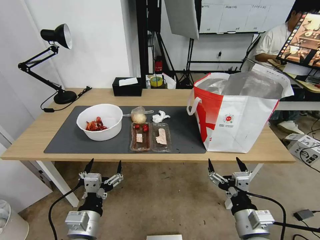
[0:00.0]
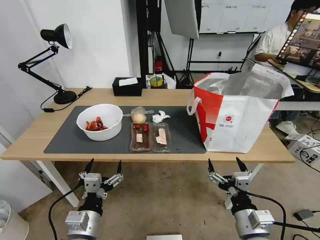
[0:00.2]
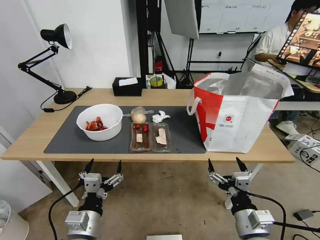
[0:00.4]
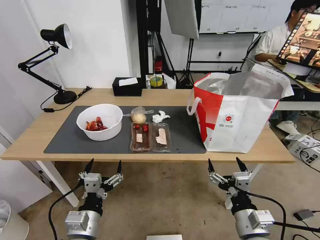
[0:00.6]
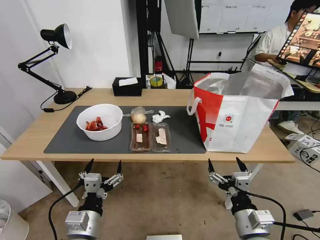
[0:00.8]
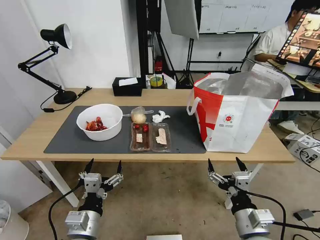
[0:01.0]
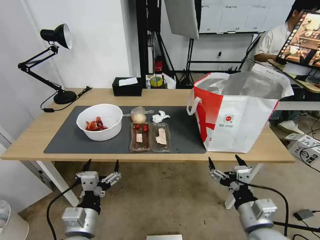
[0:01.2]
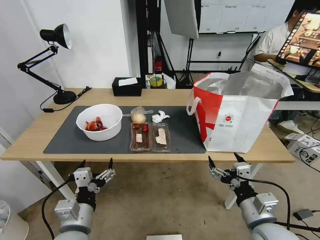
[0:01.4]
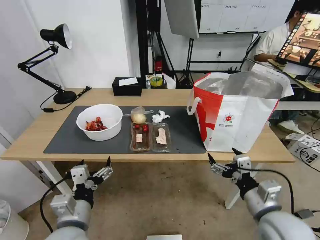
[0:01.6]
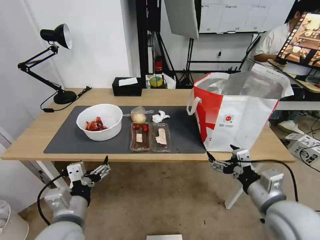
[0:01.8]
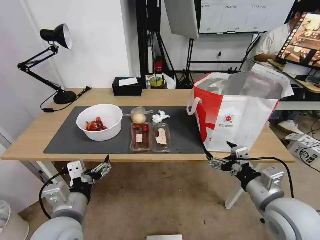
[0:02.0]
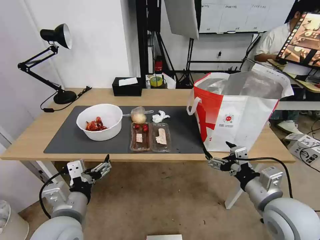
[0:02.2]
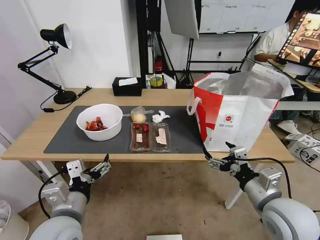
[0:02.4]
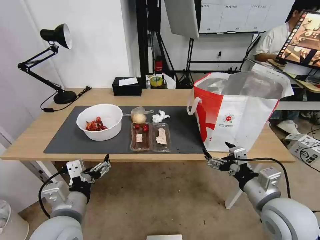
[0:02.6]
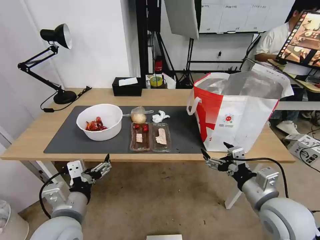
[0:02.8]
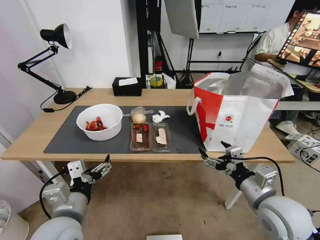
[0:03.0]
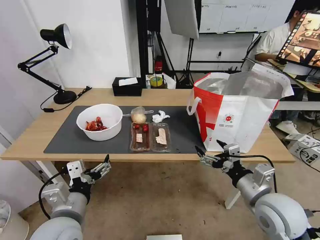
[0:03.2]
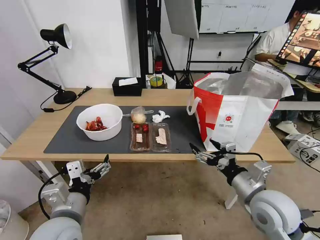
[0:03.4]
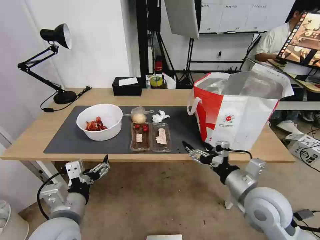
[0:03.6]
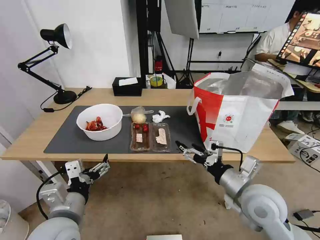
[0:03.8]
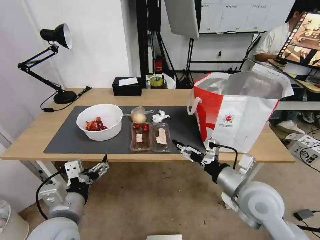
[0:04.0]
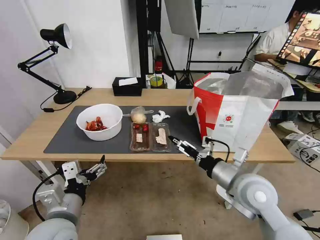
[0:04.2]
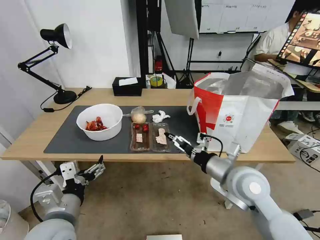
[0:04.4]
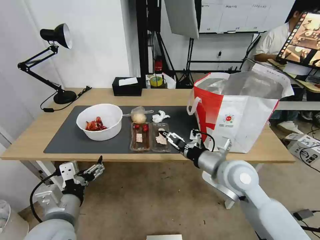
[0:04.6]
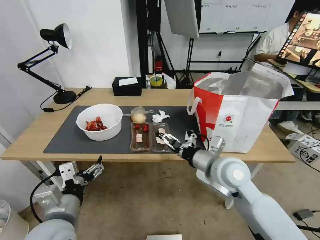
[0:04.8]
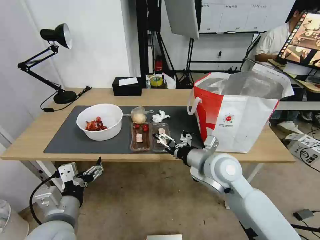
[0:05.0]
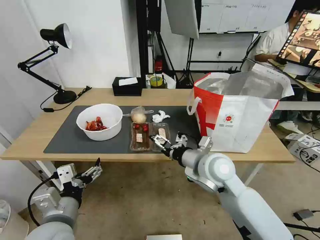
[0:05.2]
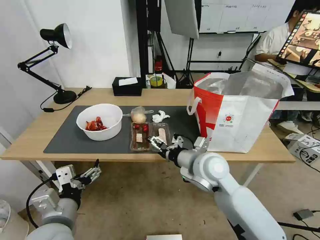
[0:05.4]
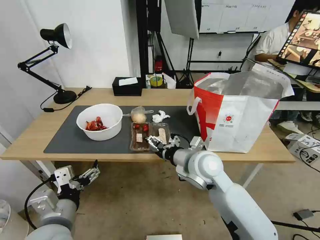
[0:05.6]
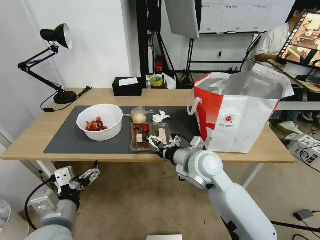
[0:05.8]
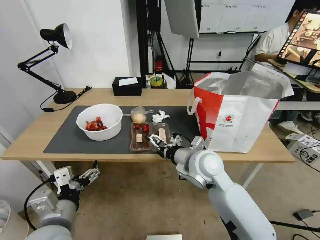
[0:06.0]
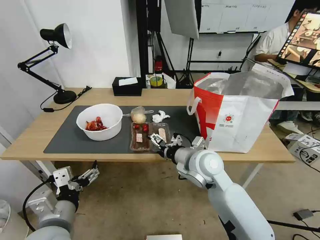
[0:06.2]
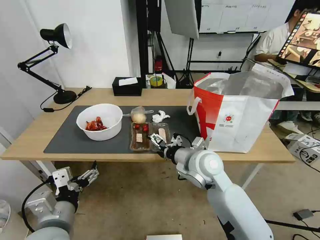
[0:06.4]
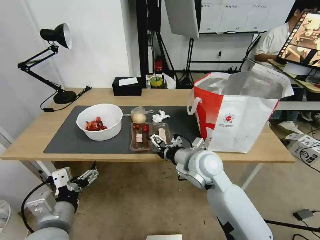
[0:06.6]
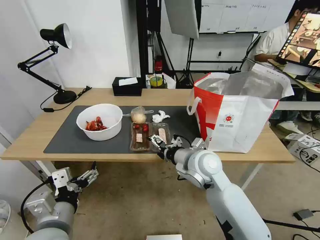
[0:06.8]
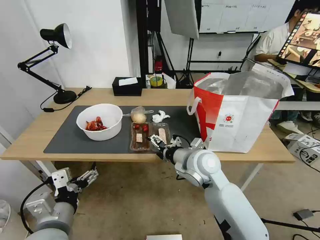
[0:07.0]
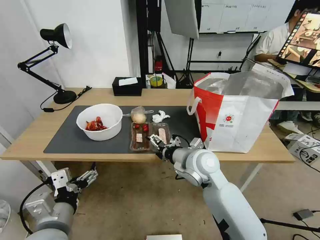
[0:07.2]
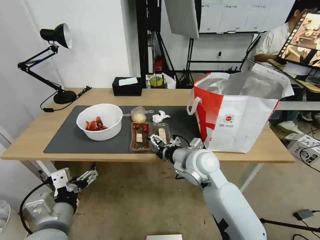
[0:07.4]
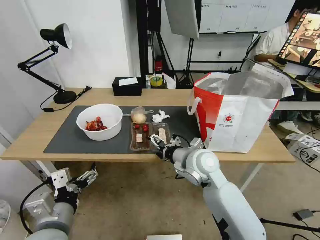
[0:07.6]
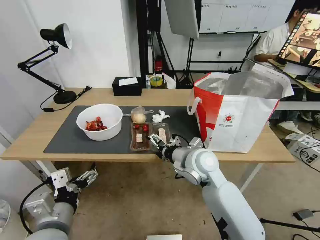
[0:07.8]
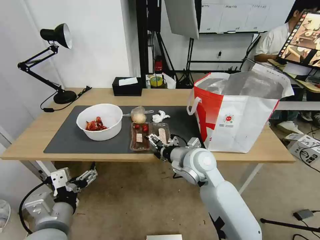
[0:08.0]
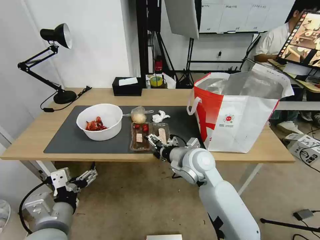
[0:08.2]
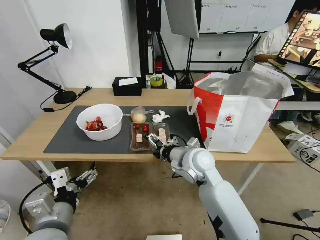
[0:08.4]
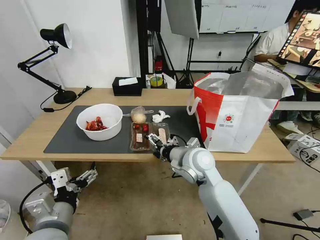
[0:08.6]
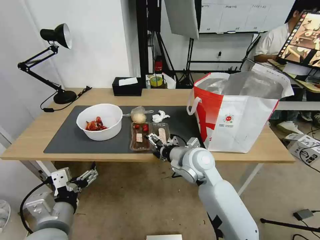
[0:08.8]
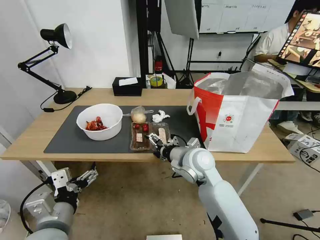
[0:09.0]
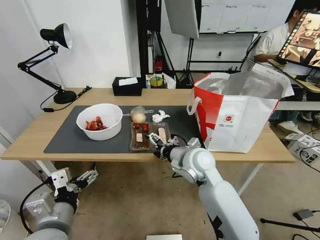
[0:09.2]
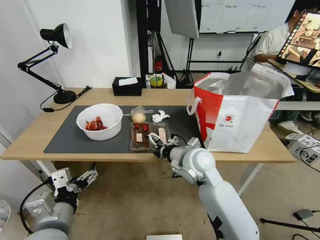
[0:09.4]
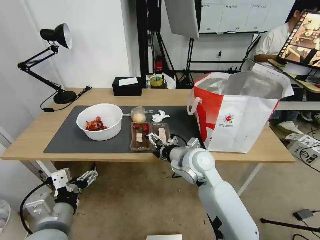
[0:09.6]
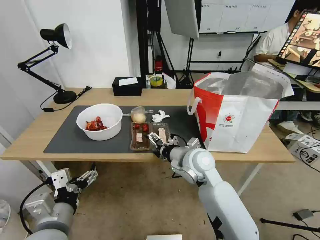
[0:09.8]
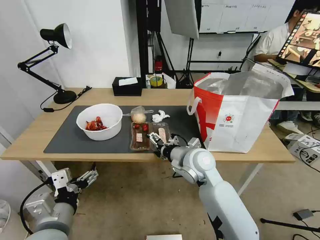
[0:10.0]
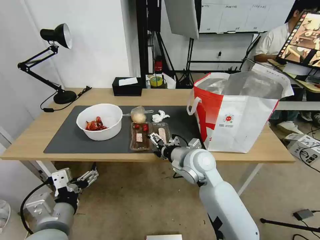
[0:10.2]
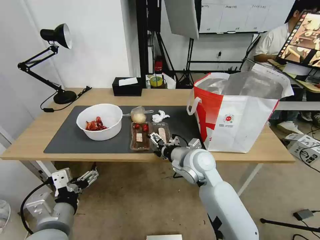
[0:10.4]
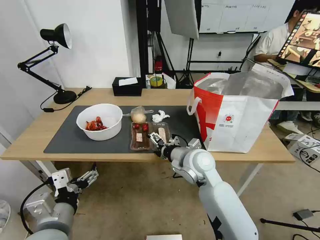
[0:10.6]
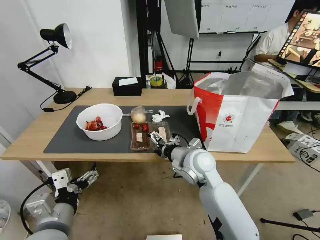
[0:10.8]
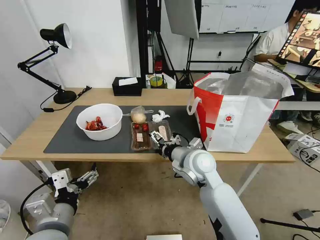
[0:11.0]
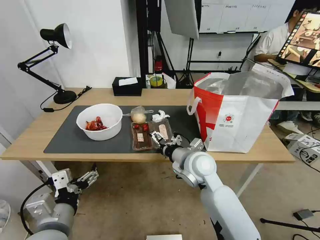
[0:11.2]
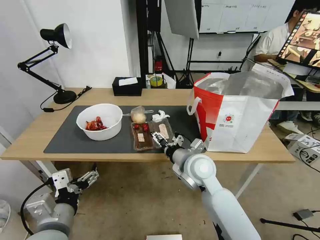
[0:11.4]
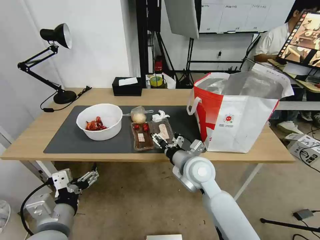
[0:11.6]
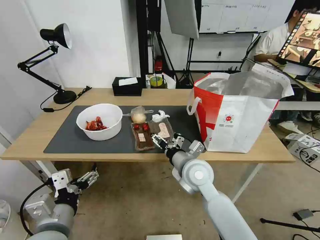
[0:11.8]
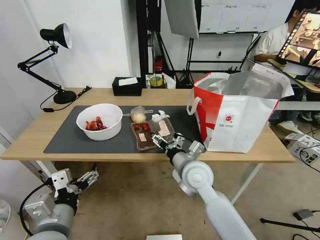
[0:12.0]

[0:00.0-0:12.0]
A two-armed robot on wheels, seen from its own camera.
Task of the whole recording: Pick up the trash from the table and place it into the takeout bag.
0:01.6 to 0:03.0: The grippers move only a little.
0:03.0 to 0:04.4: The right gripper heads forward and to the left, covering roughly 10 cm.
0:04.4 to 0:06.0: The right gripper travels to the left and forward by roughly 10 cm.
0:06.0 to 0:09.0: There are only small adjustments of the grippers.
0:09.0 to 0:10.4: The two grippers keep their place.

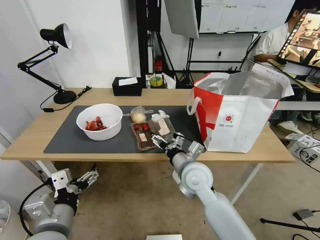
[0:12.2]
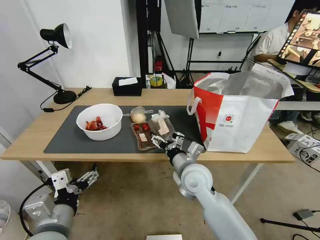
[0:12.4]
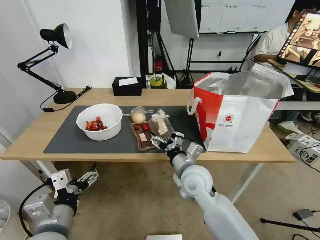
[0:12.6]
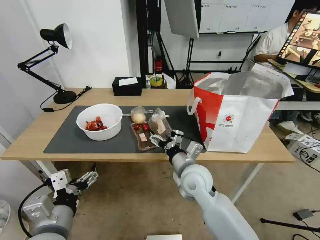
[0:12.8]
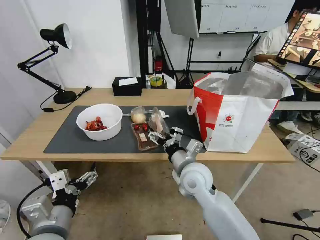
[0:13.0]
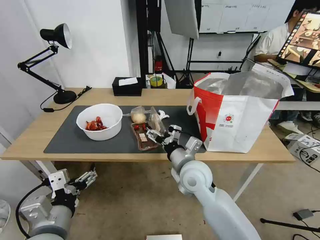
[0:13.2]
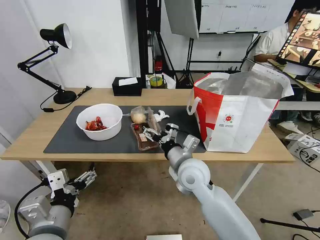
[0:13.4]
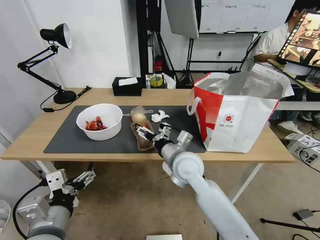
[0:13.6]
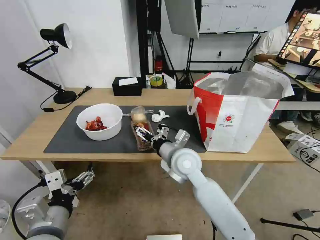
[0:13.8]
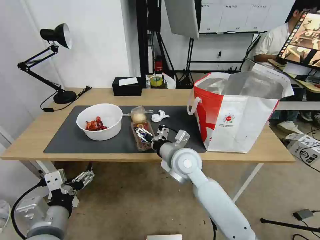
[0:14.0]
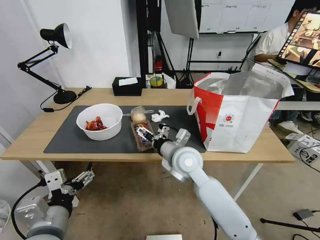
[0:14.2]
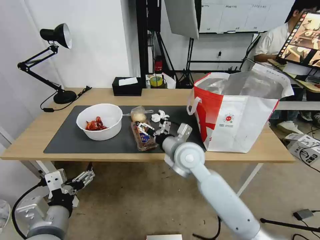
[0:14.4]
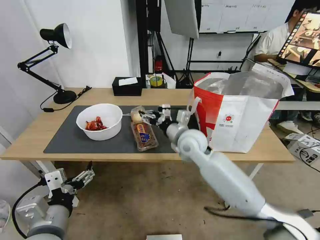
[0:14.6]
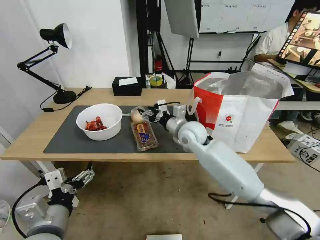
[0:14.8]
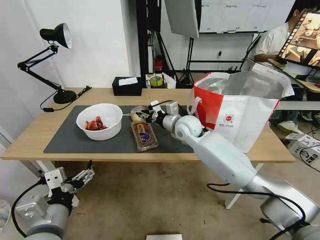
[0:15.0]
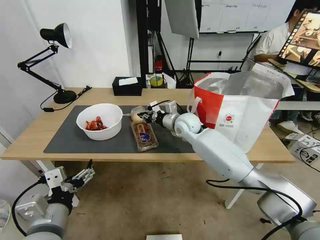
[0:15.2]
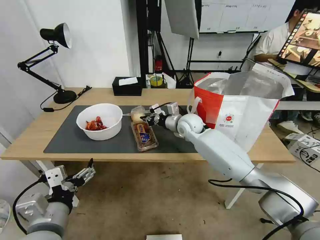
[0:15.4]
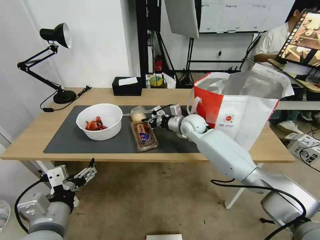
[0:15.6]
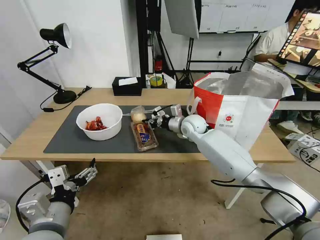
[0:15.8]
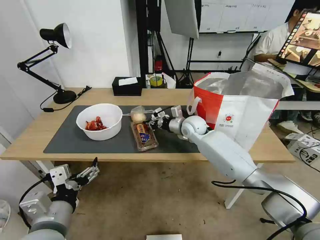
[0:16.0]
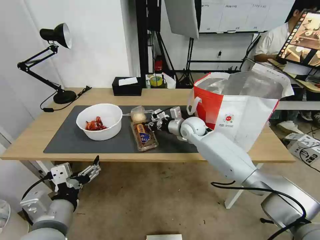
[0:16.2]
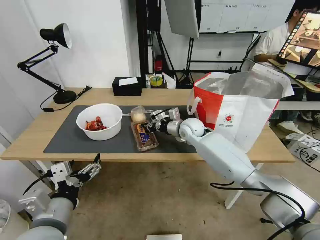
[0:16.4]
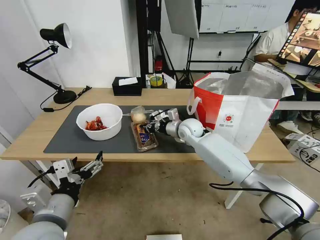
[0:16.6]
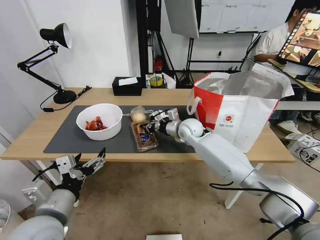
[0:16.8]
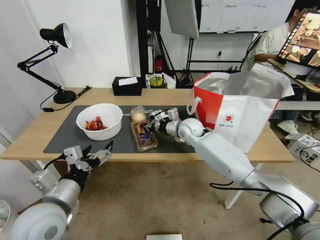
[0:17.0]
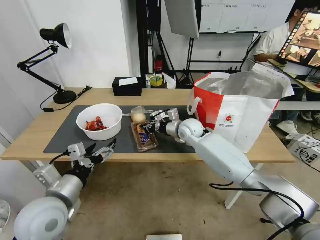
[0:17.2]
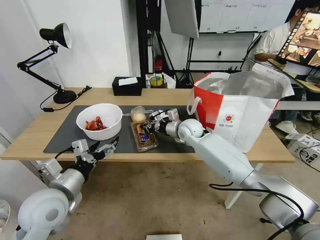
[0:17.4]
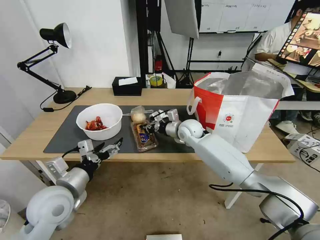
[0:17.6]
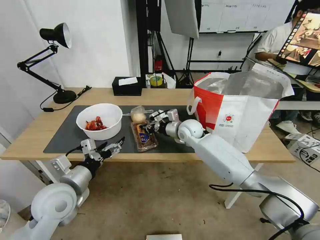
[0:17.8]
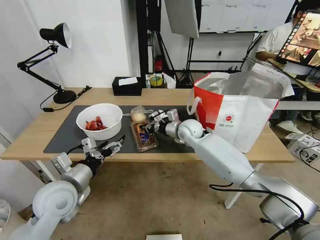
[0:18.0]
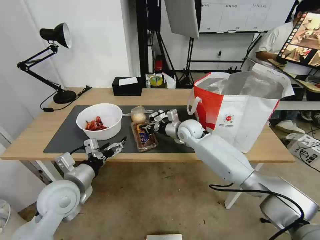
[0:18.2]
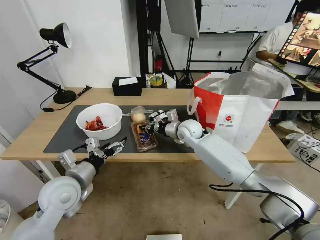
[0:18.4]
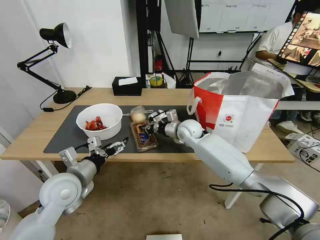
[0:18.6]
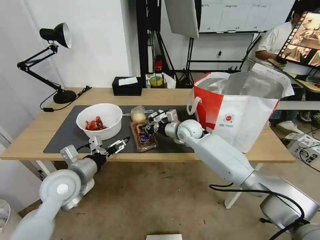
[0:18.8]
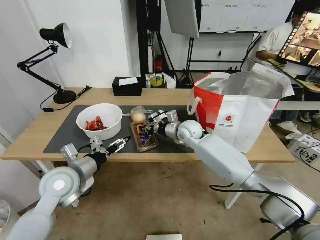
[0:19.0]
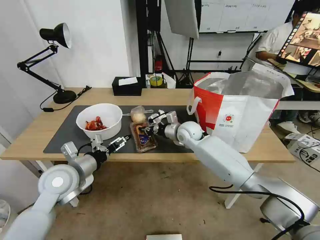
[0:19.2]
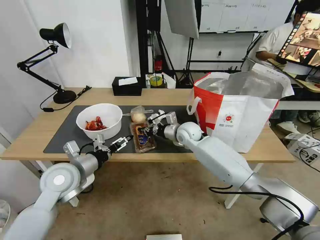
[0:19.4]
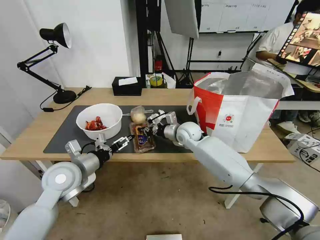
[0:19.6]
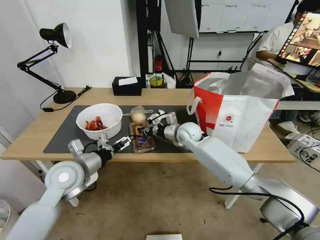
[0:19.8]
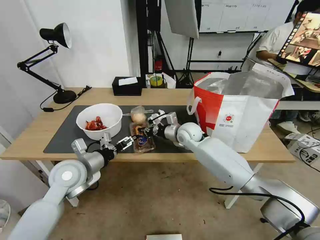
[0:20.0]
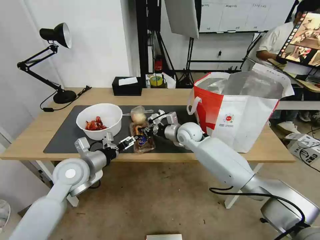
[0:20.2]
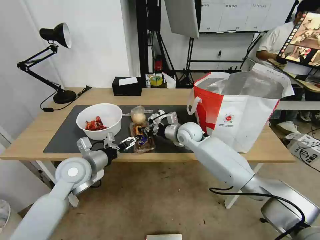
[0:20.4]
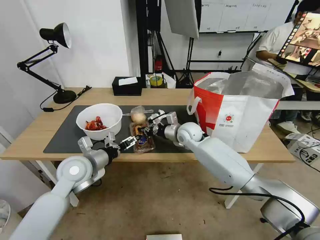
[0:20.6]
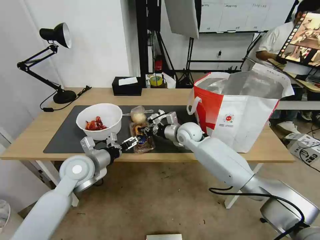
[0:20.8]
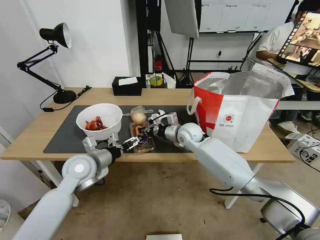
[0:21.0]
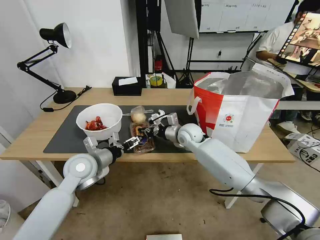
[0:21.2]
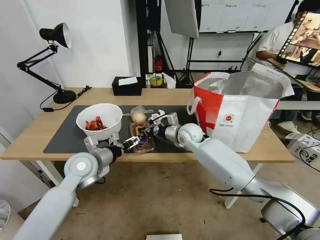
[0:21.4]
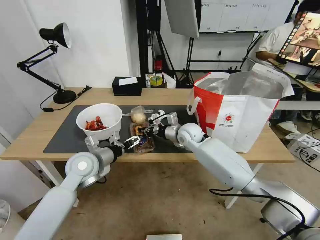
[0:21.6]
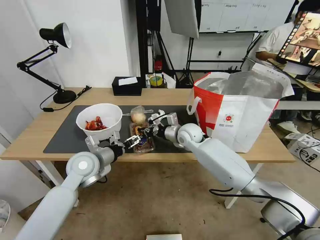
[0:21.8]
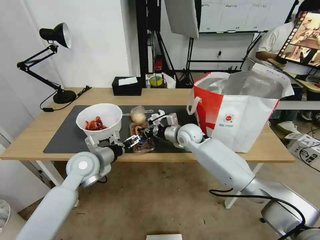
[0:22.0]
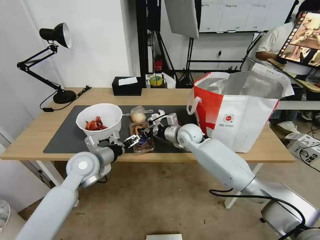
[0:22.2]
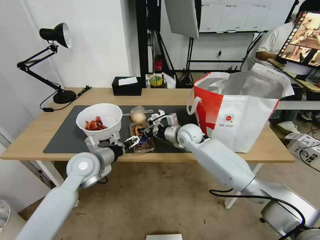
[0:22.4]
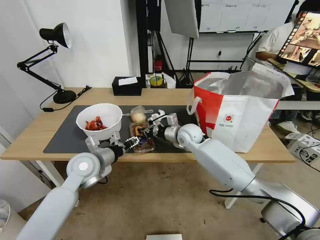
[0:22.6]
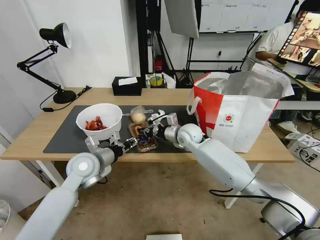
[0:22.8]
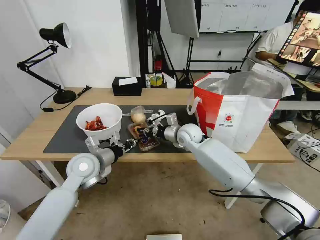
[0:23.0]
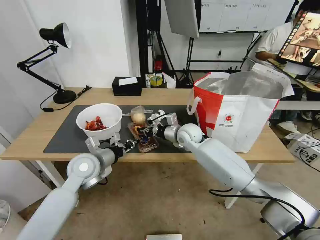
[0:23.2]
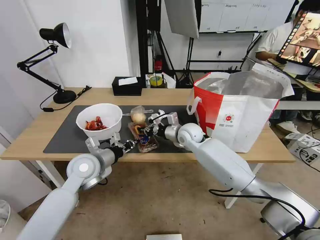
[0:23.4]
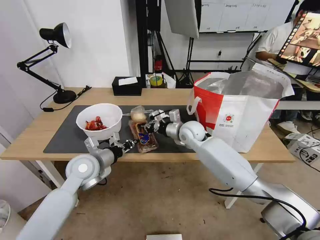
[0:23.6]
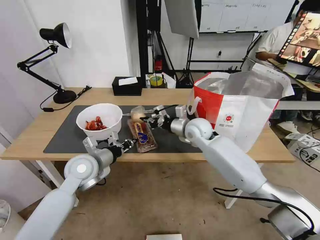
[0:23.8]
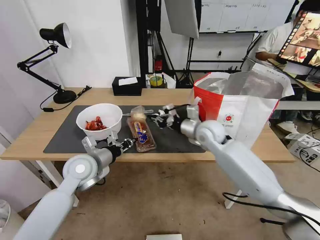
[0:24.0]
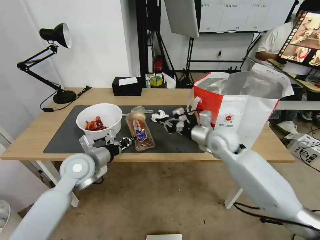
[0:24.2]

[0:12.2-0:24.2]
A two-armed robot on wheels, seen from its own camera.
Task of the whole recording: Pick up the trash from the table and place it into the takeout bag.
0:12.2 to 0:13.8: The right gripper changes place by about 5 cm.
0:13.8 to 0:15.2: The right gripper shifts about 15 cm forward, and closes its fingers.
0:15.2 to 0:16.6: There are only small adjustments of the grippers.
0:16.6 to 0:18.2: The left gripper moves forward, approximately 10 cm.
0:18.2 to 0:19.8: The left gripper goes approximately 5 cm forward.
0:19.8 to 0:21.2: There are only small adjustments of the grippers.
0:21.2 to 0:22.6: The left gripper closes.
0:22.6 to 0:24.2: The left gripper closes; the right gripper goes about 10 cm to the right, backward and upward.
